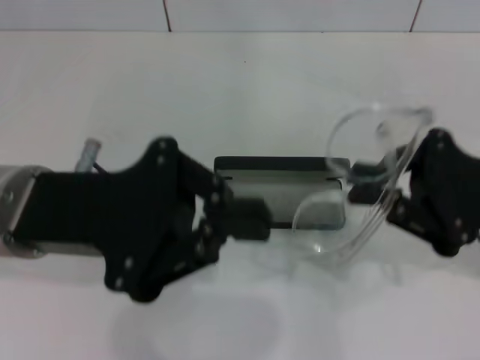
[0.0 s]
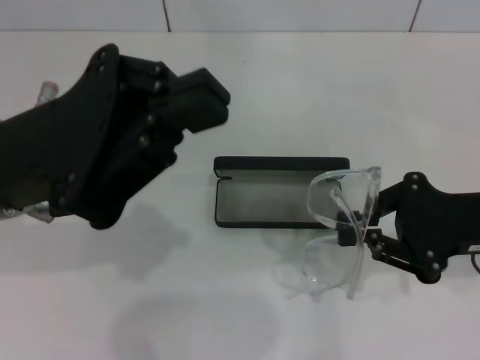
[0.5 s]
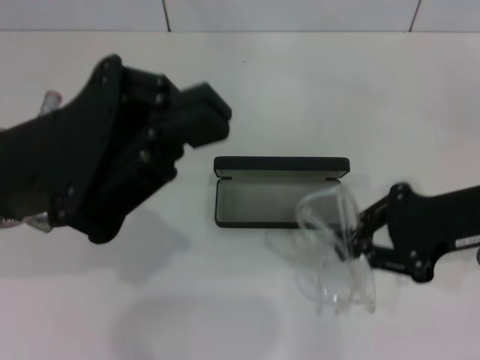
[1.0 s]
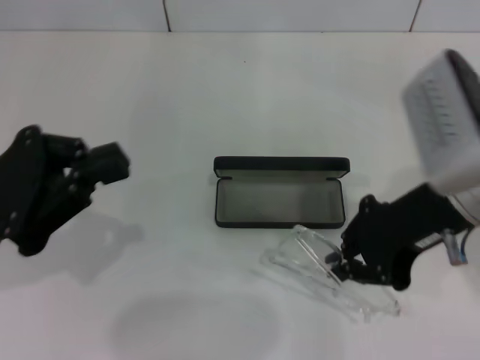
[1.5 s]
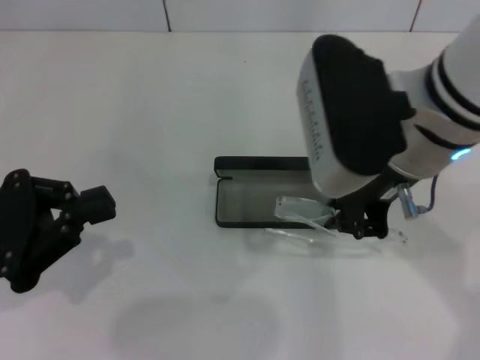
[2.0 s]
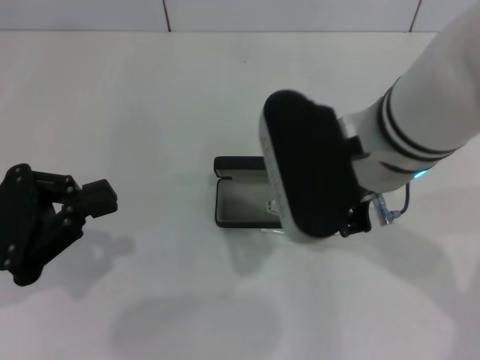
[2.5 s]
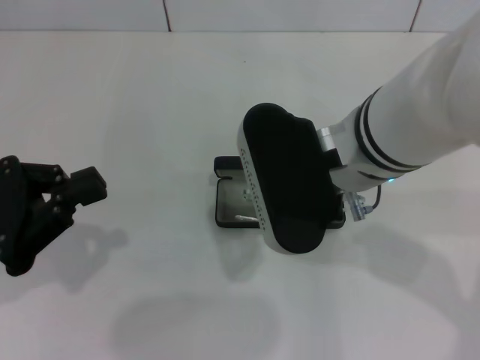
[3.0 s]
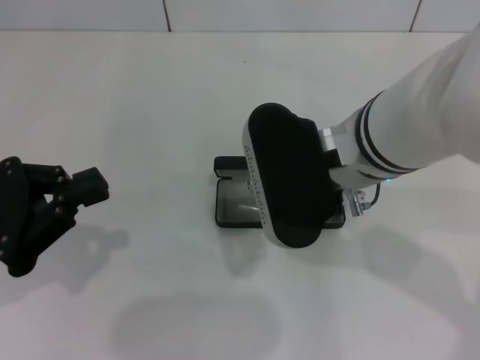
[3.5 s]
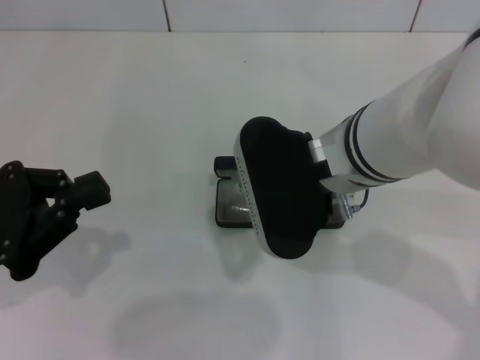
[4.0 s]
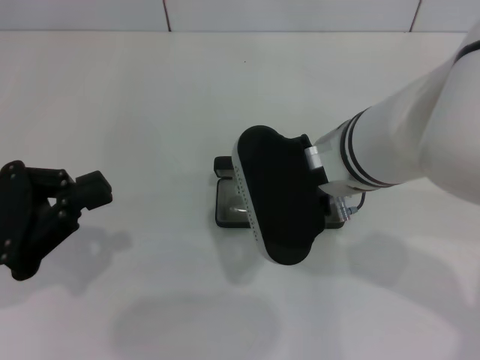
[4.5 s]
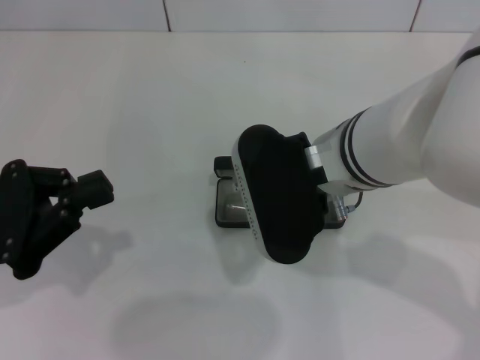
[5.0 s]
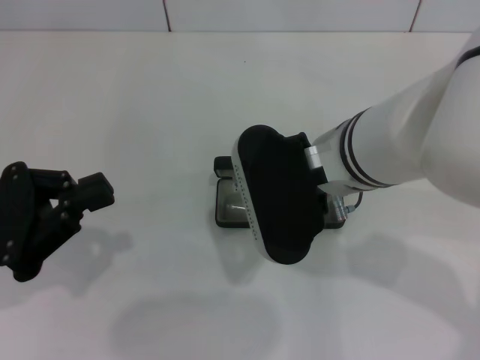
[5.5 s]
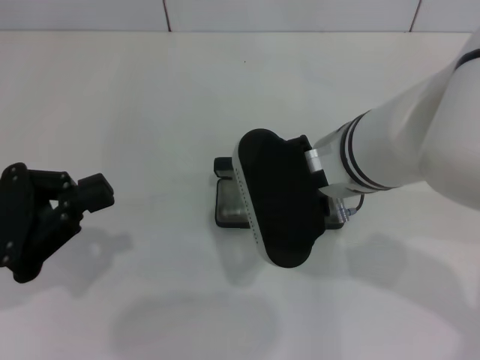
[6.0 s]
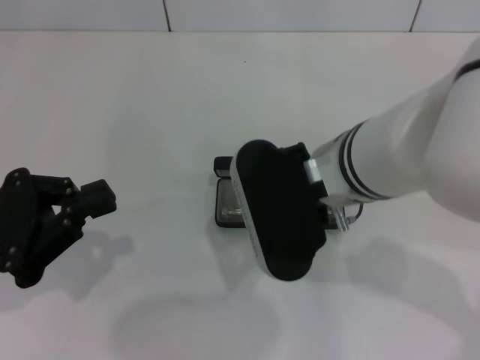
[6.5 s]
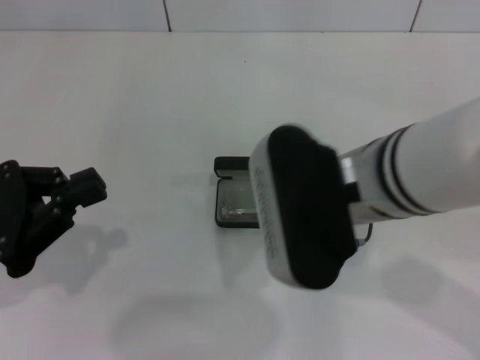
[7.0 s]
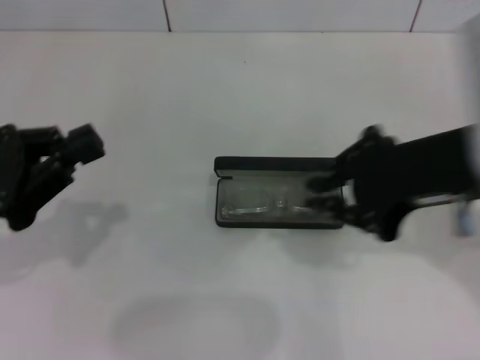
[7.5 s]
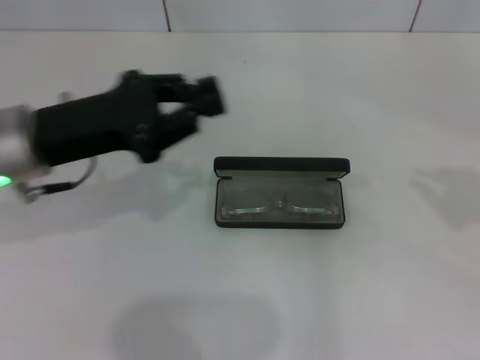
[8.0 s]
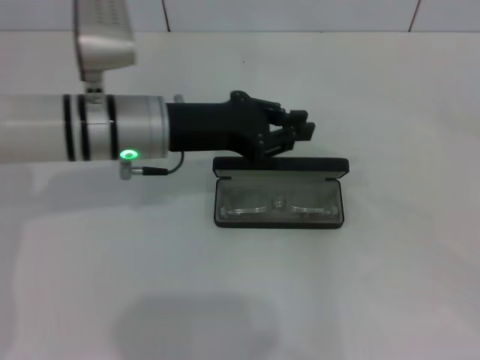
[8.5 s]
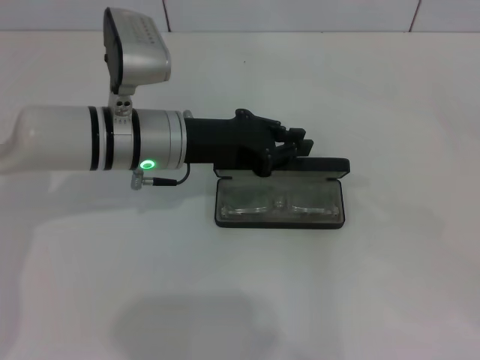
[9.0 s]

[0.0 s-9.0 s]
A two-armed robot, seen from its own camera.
Step, 0.0 to 6.0 s: Put the glasses into the case with your right hand.
0.0 to 2.0 s: The left gripper heads to the left, covering roughly 10 cm. Meanwhile the right gripper heads to the left and upward, covering roughly 15 cm.
2.0 to 4.5 s: The right gripper travels downward by about 5 cm.
4.5 to 7.0 s: The grippers move only a little.
7.0 to 9.0 s: The left gripper shifts roughly 25 cm to the right and forward. The right gripper shifts some 35 cm to the right.

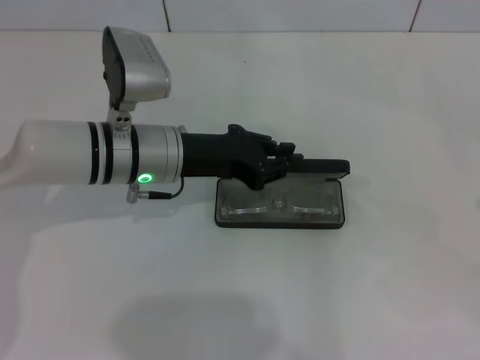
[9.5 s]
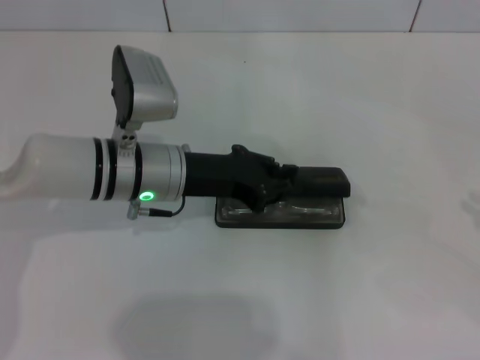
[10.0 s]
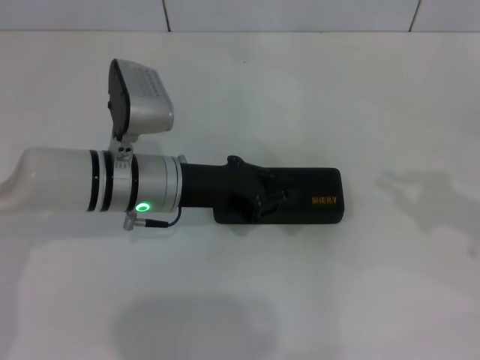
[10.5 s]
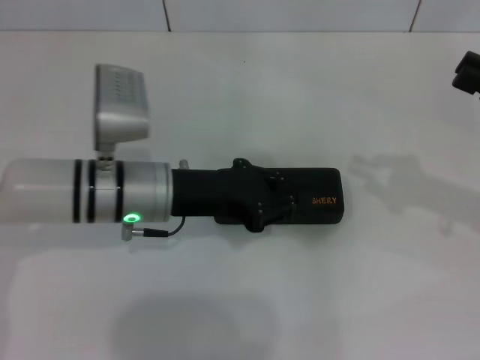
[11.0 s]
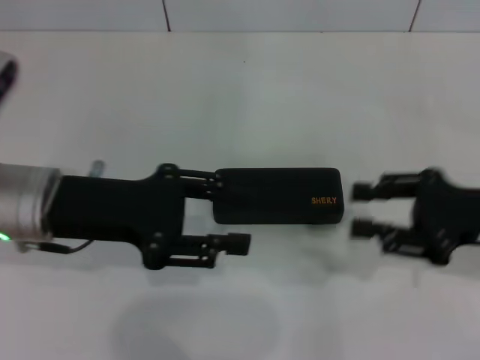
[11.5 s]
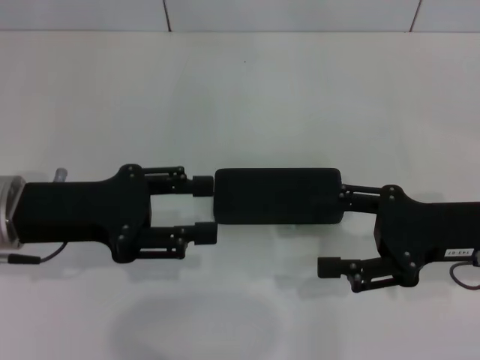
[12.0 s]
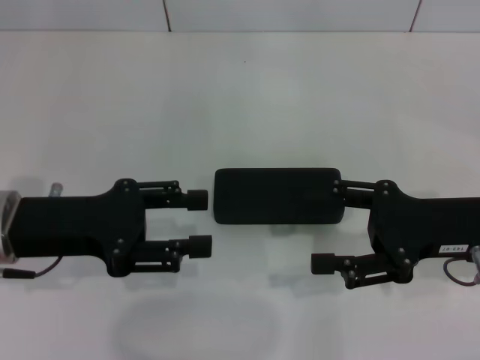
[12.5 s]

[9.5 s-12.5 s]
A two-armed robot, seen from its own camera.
9.5 to 11.0 s: The right gripper goes about 15 cm forward and to the left.
11.0 to 12.5 s: The left gripper travels to the left and backward by roughly 10 cm, and opens up. Meanwhile the right gripper travels to the left by roughly 10 cm, and opens its fingers.
